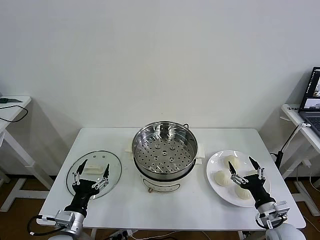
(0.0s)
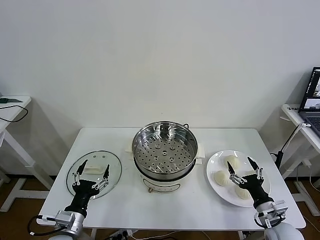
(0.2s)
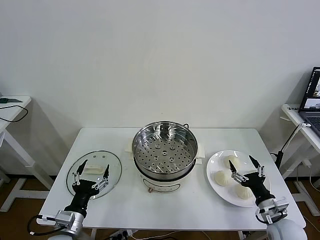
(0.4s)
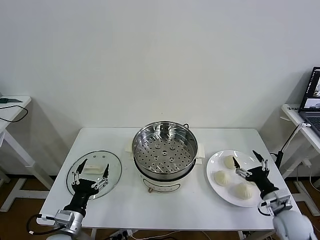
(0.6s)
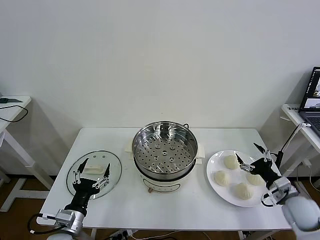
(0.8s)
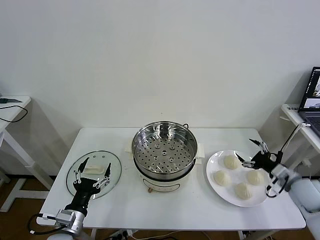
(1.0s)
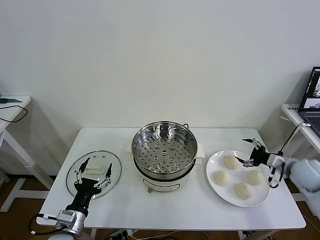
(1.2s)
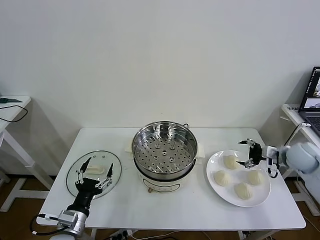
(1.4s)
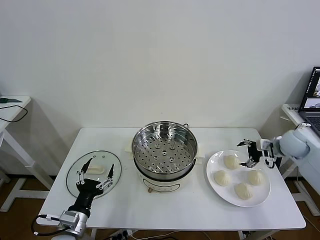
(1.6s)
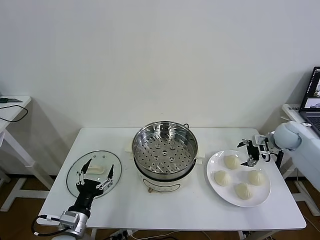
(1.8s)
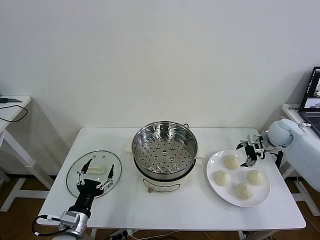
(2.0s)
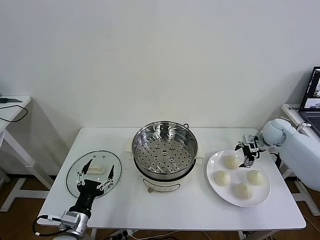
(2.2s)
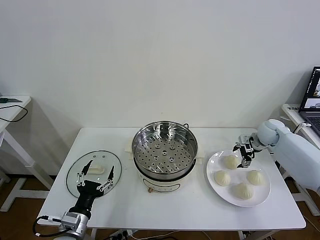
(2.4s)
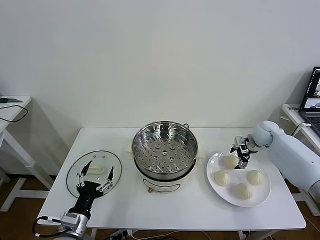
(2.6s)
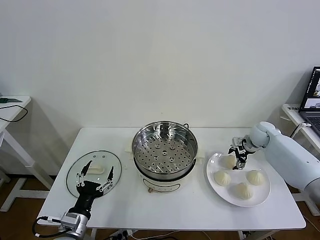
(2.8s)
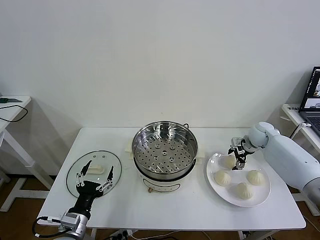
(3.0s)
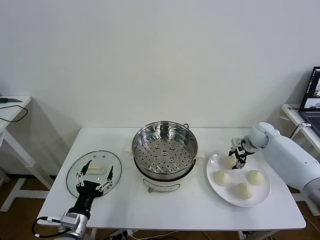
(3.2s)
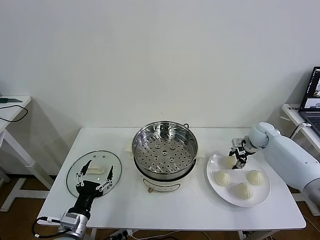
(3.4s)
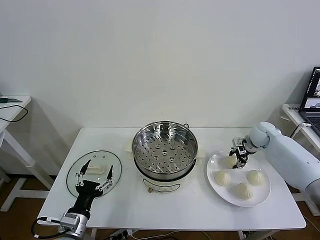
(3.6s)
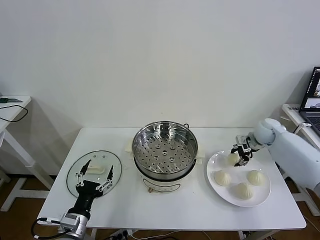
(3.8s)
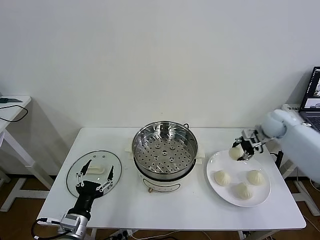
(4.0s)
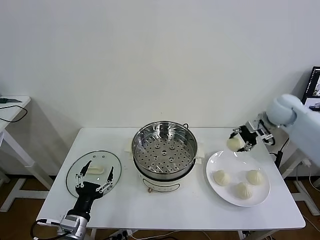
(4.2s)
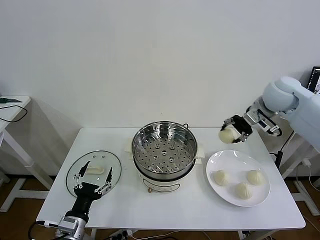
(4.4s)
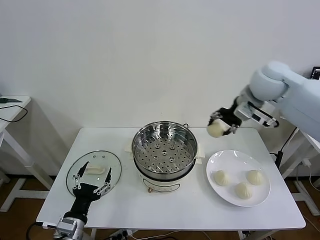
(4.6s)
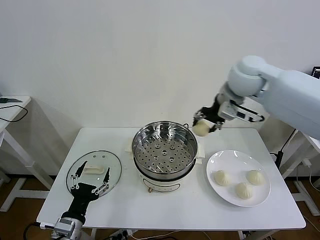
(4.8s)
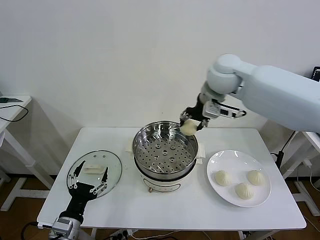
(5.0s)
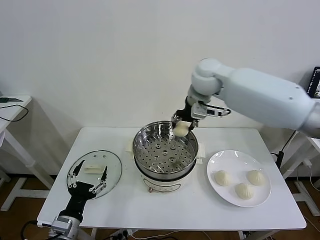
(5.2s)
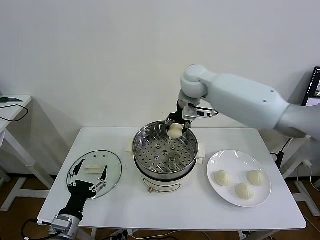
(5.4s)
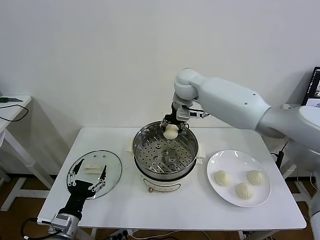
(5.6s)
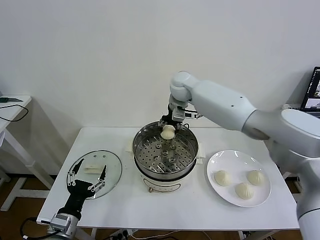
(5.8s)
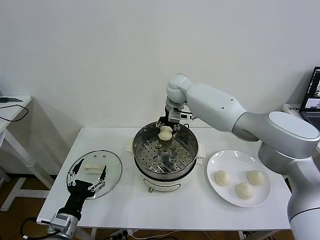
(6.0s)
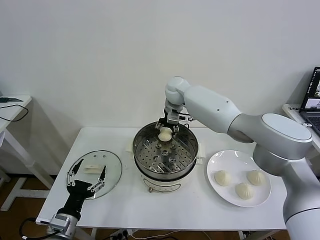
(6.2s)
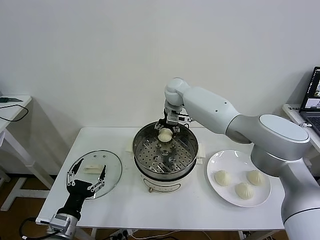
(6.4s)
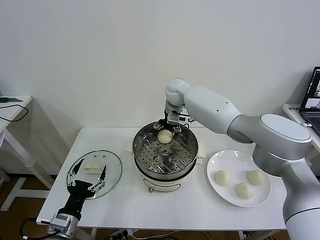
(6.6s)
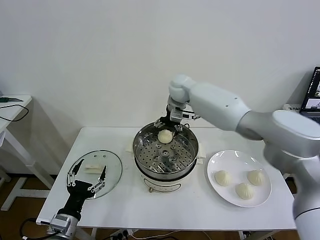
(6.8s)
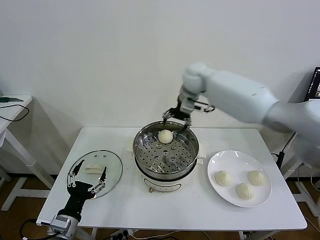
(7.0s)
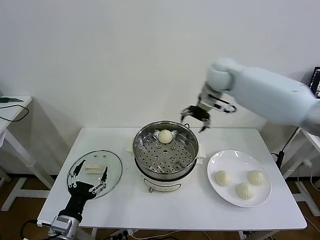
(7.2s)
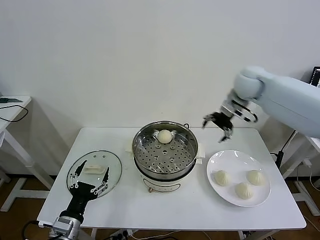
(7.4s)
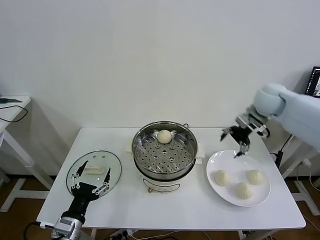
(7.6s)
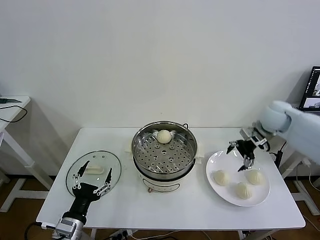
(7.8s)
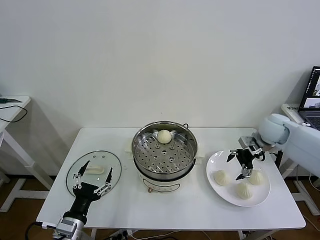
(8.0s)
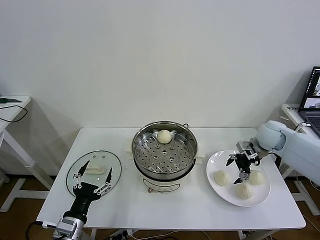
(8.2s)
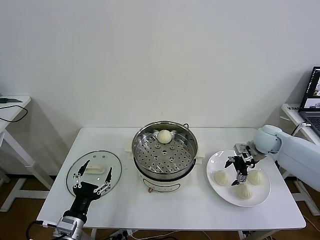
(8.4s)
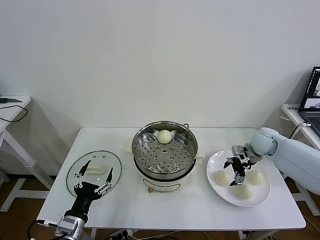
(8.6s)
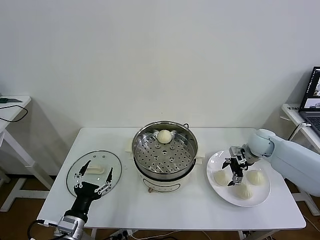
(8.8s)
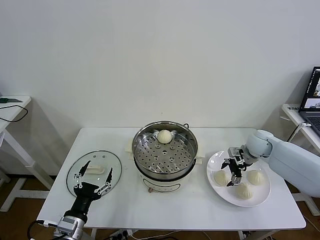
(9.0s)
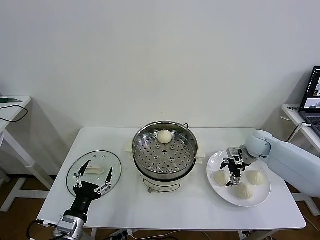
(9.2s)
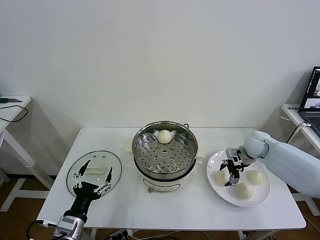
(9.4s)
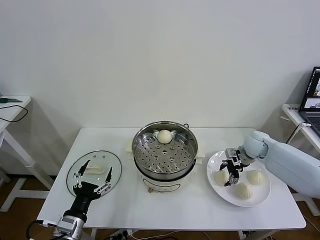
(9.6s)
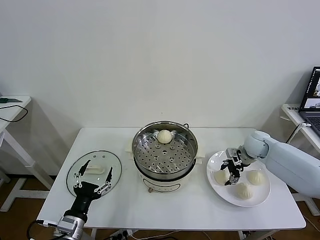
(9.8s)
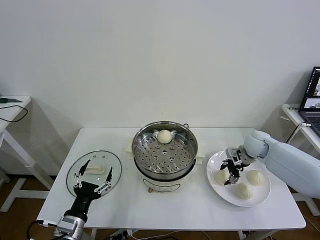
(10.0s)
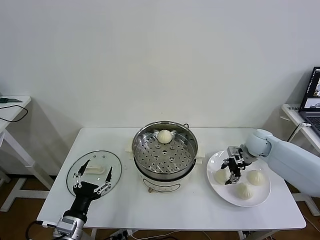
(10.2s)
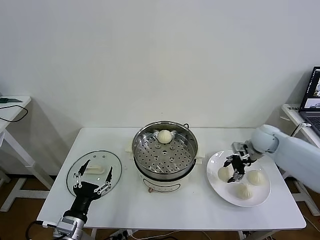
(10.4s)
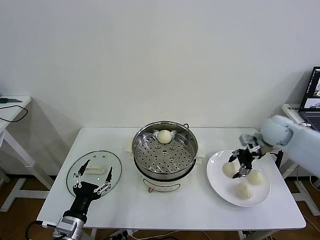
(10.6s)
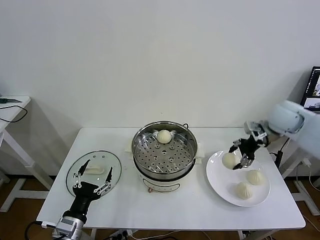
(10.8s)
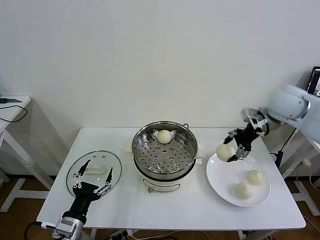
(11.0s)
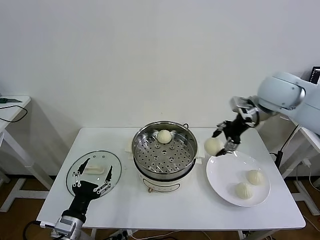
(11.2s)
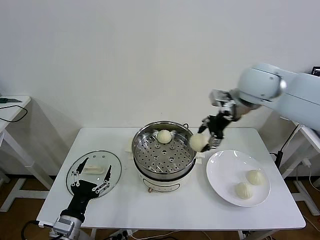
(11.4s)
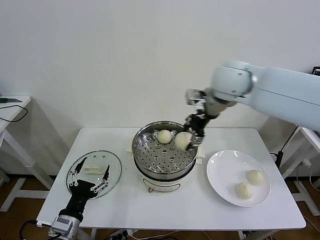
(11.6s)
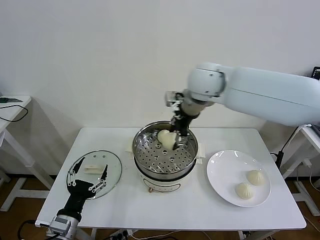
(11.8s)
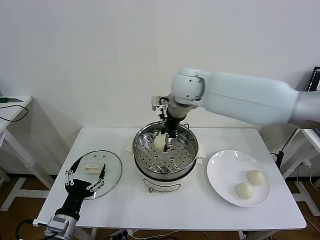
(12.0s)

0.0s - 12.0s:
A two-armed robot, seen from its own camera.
Task of the whole recording: take steamed baozi put them in steamer then cover it.
Step, 0.0s - 3.0s: Grasp the baozi in the plate with right gripper.
Step, 3.2s - 6.4s: Place the baozi on the steamer with right gripper.
Step, 6.6s - 9.6s: Grasp the baozi in the plate with right gripper.
1.6s - 3.0s: The right gripper moves downward and forward, some 10 cm, and closes its fingers.
3.0s - 4.4s: The right gripper shifts about 30 cm upward and to the left.
4.4s - 6.0s: The right gripper heads to the left, forward and downward, covering approximately 30 cm.
6.0s - 7.6s: The right gripper shifts some 30 cm to the right, and opens.
7.6s - 9.0s: The right gripper shifts roughly 15 cm downward.
9.0s - 10.4s: The right gripper heads upward, covering some 10 cm, and closes its fingers.
10.4s - 12.0s: The right gripper heads to the left and upward, covering roughly 35 cm.

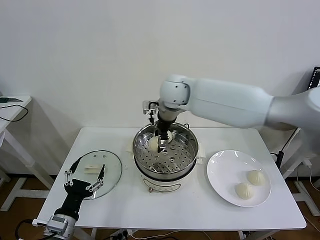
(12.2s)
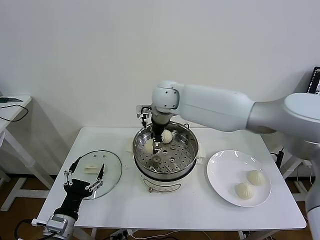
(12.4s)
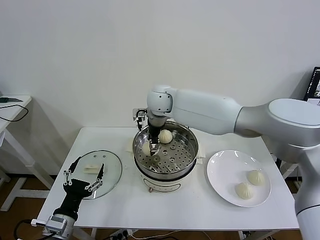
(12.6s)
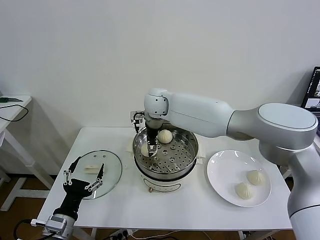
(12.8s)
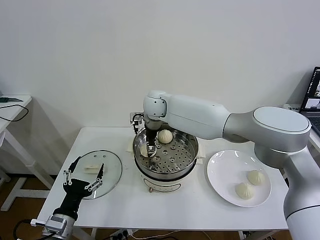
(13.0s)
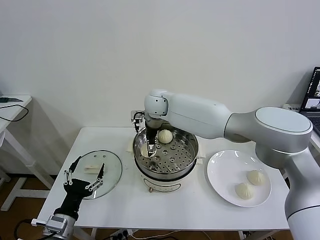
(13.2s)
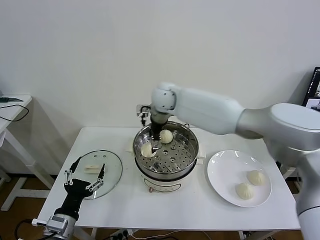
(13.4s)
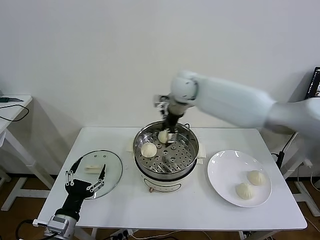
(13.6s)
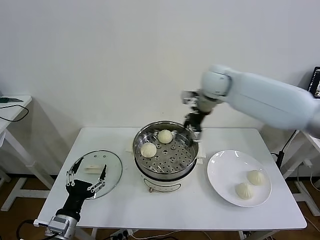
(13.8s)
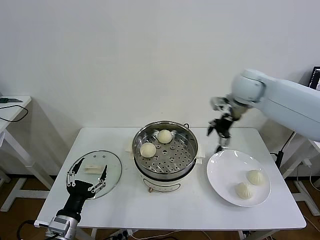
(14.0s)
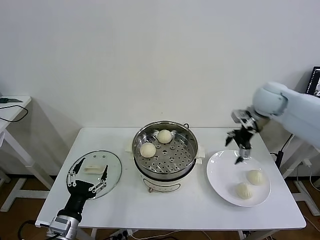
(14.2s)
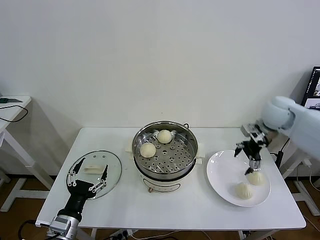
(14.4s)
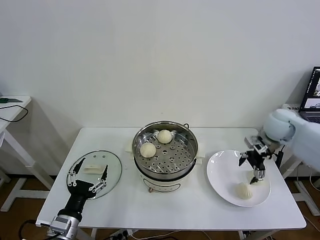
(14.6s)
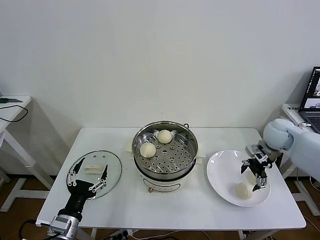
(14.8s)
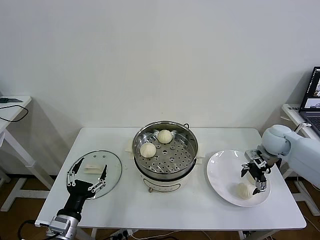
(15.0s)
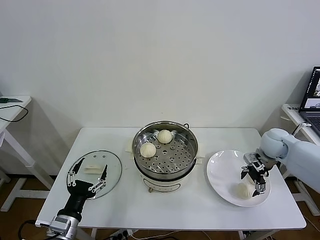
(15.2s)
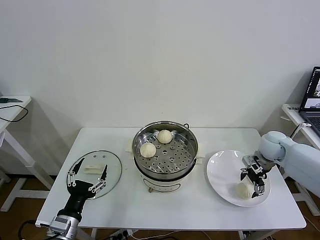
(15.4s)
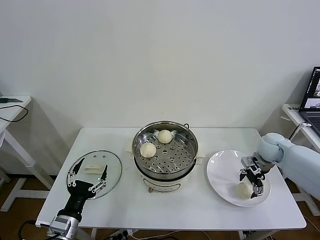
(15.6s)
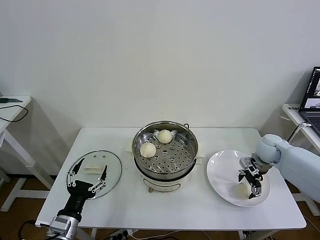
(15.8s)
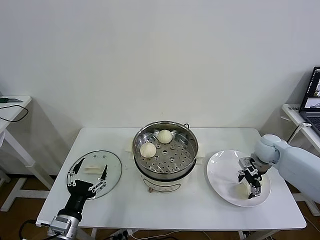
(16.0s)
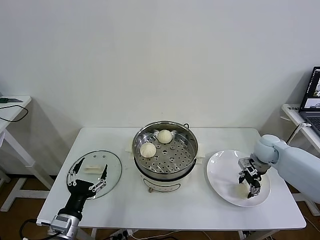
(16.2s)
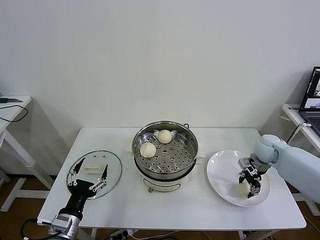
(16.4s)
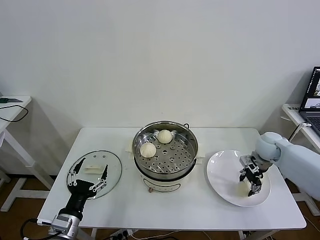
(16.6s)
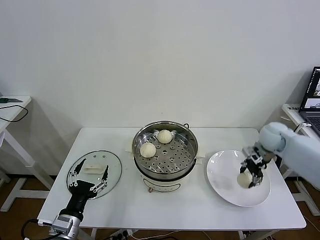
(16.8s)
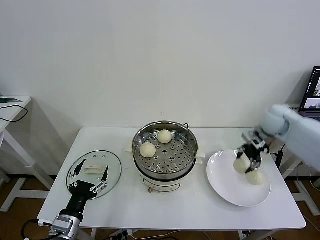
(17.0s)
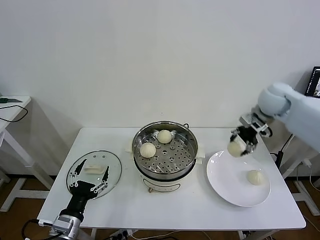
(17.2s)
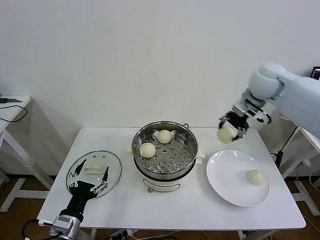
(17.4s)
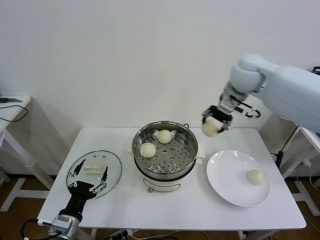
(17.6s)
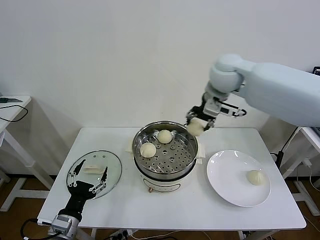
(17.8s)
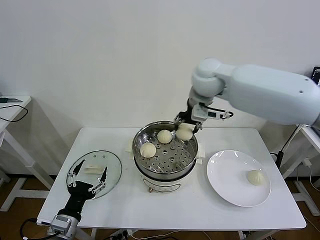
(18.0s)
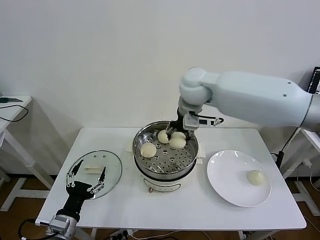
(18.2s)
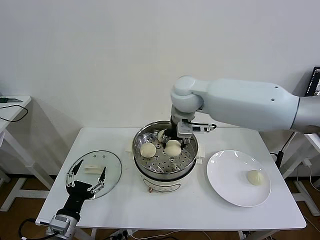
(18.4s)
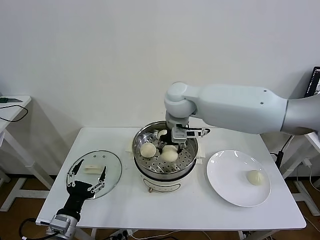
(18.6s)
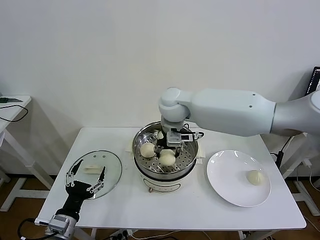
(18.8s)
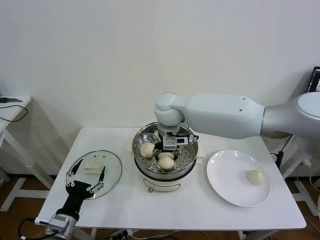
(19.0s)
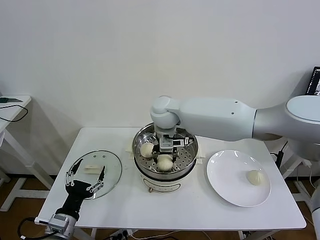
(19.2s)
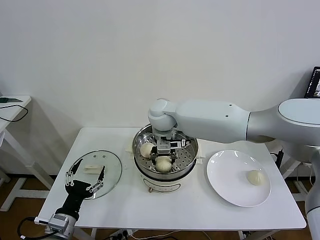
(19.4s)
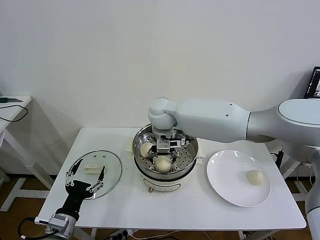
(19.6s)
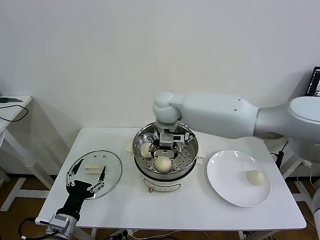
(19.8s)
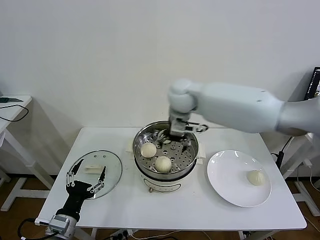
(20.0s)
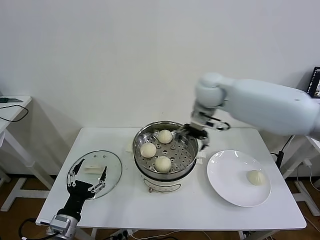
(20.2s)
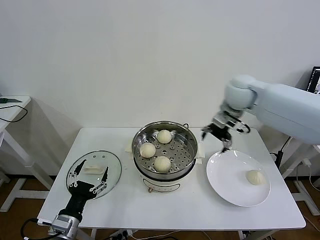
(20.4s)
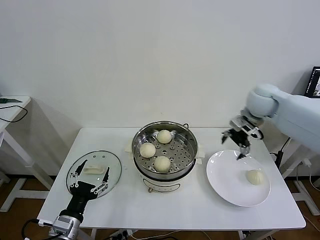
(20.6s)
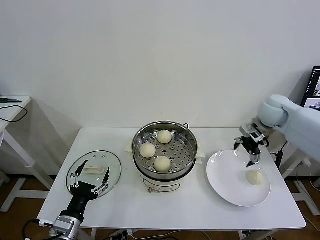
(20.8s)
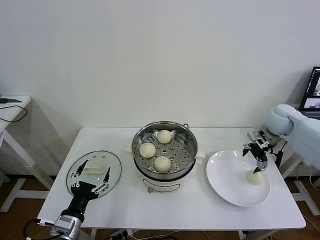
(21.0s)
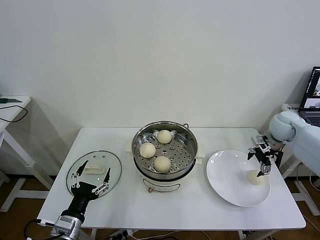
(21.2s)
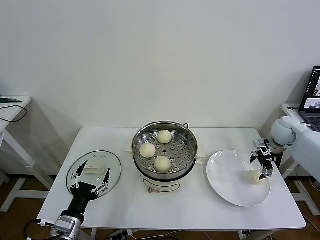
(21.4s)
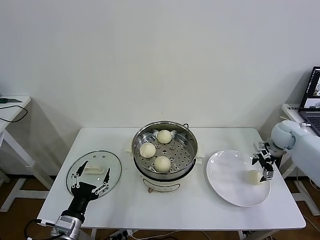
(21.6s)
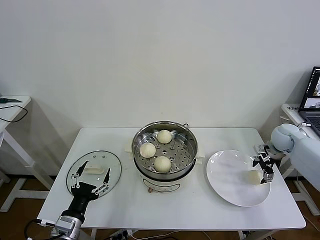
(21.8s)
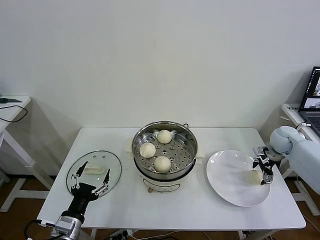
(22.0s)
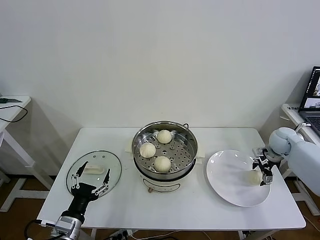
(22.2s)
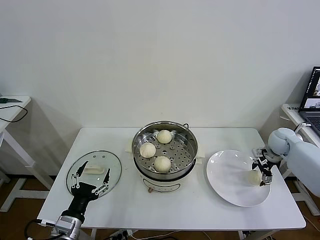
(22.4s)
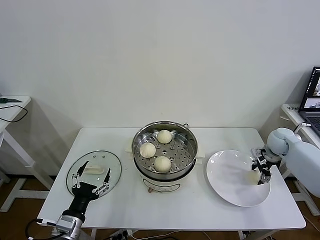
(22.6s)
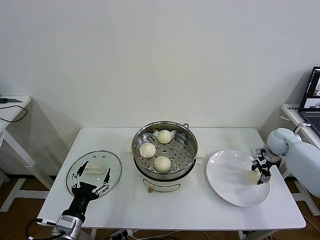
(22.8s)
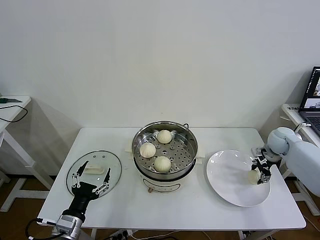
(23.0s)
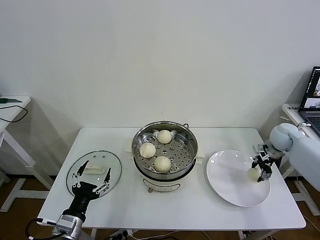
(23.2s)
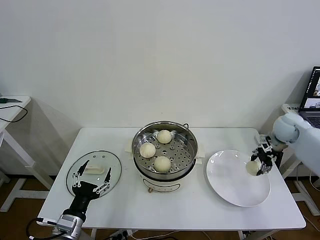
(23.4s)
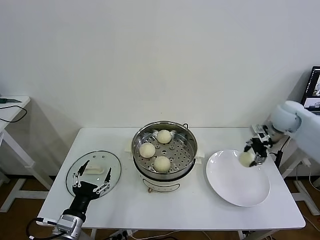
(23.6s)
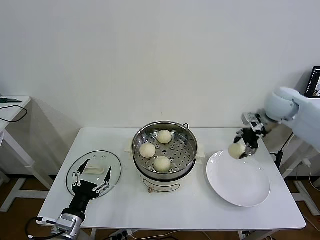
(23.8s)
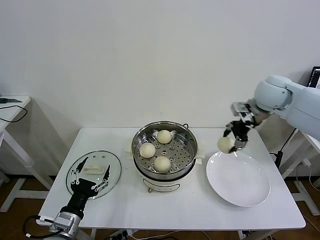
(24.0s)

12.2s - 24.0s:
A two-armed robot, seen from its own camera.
Task of the whole recording: take steamed baozi put them in steamer then cover it.
Step, 13.4s - 16.2s: Grasp the baozi in the plate with right gripper.
Step, 16.4s - 19.6s: Place the baozi on the steamer with right gripper.
Step, 19.8s - 22.6s: Grasp the baozi in the plate with right gripper.
12.2s - 13.6s: The right gripper goes approximately 10 cm to the right, and opens its fingers.
13.6s - 15.2s: The right gripper shifts roughly 35 cm to the right and downward.
15.2s - 16.6s: The right gripper closes up.
16.6s - 18.2s: The right gripper is displaced to the left and upward by approximately 40 cm.
18.2s - 19.6s: The right gripper shifts roughly 10 cm downward and to the left, and opens its fingers.
19.6s - 21.0s: The right gripper is displaced to the right by approximately 40 cm.
21.0s - 22.6s: The right gripper moves downward, roughly 10 cm, and closes up.
22.6s - 24.0s: The right gripper travels upward and to the left by approximately 30 cm.
